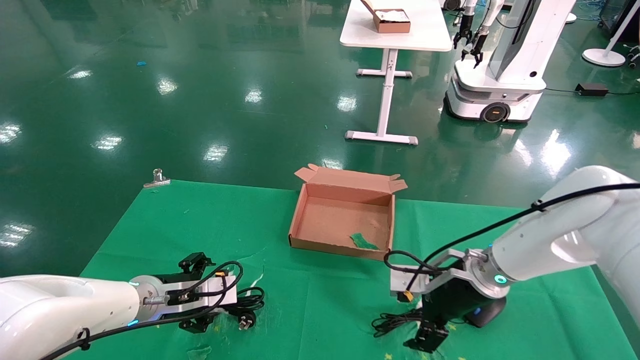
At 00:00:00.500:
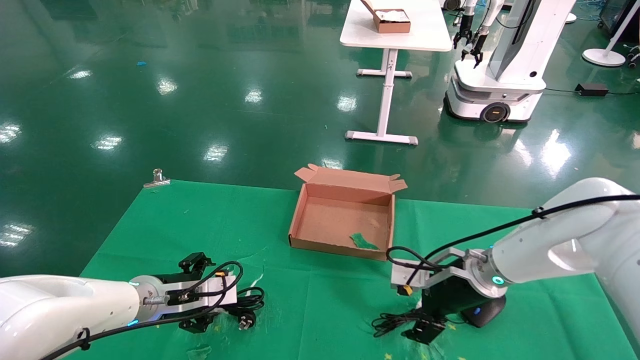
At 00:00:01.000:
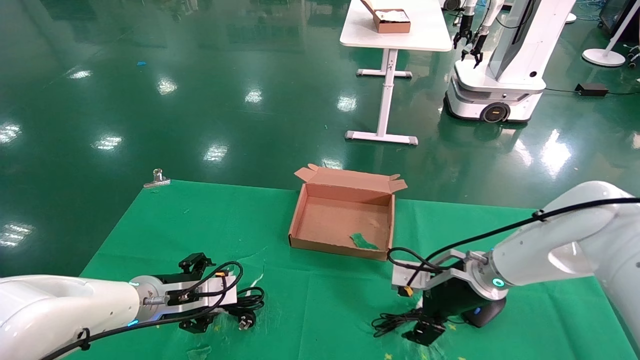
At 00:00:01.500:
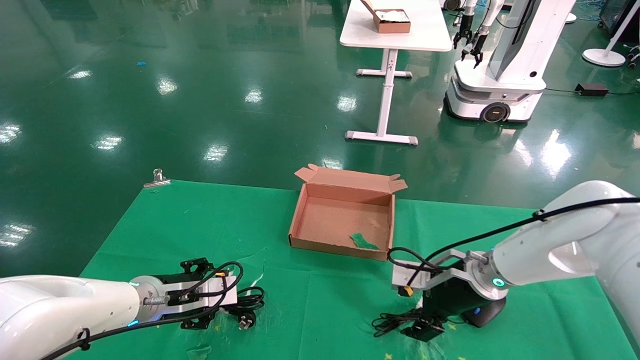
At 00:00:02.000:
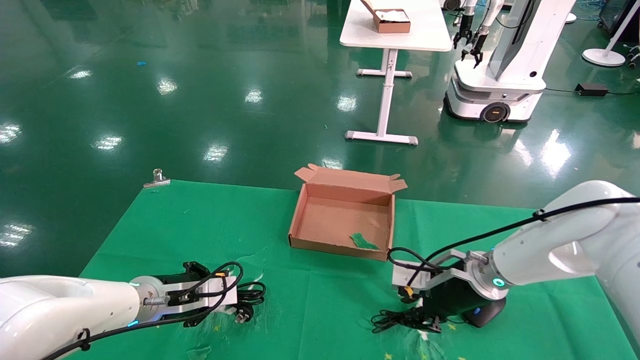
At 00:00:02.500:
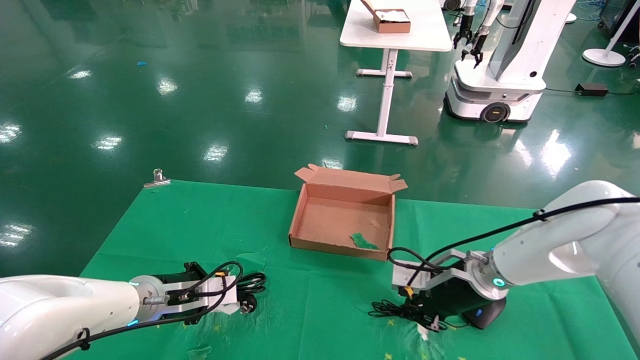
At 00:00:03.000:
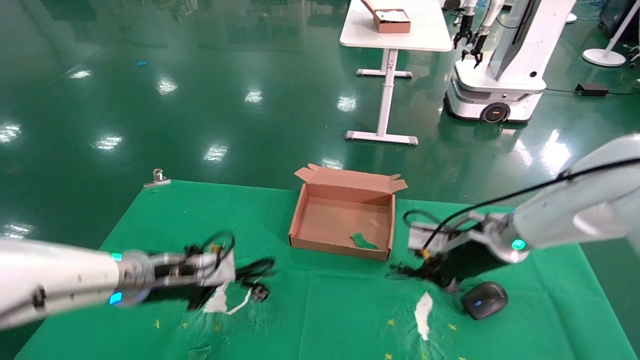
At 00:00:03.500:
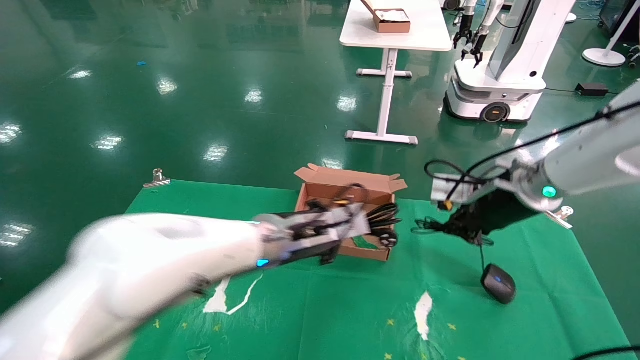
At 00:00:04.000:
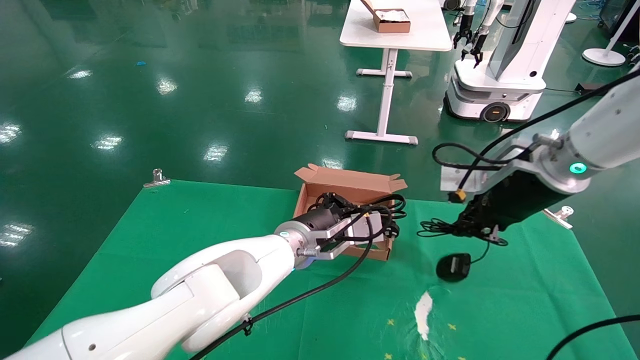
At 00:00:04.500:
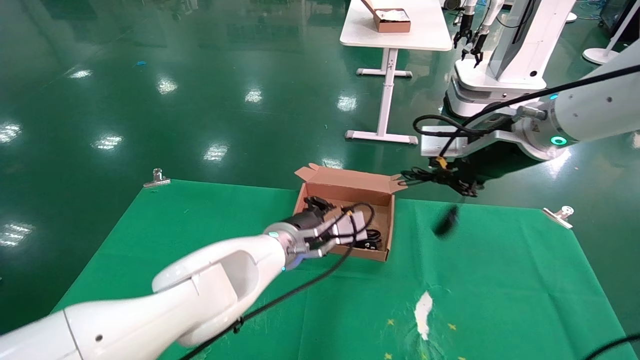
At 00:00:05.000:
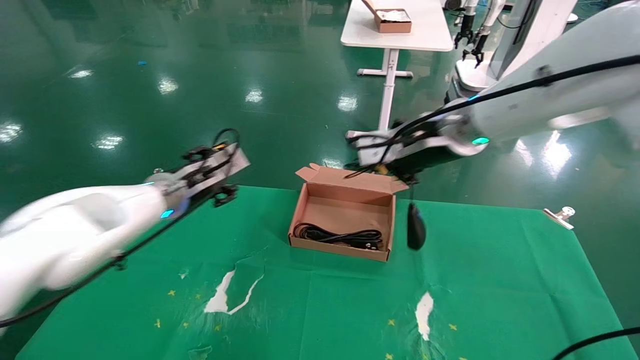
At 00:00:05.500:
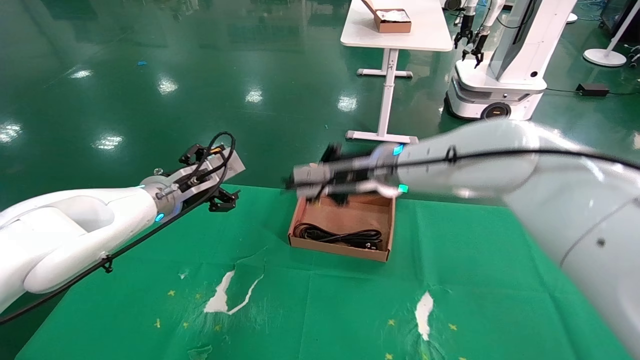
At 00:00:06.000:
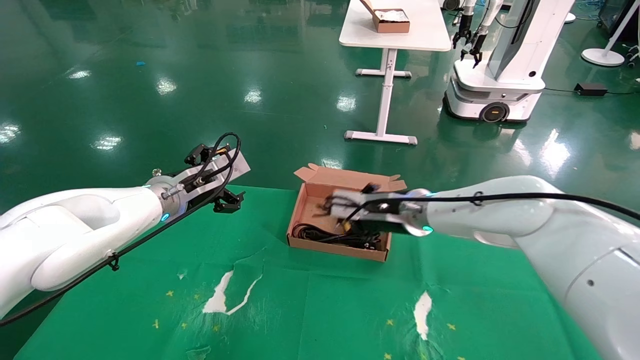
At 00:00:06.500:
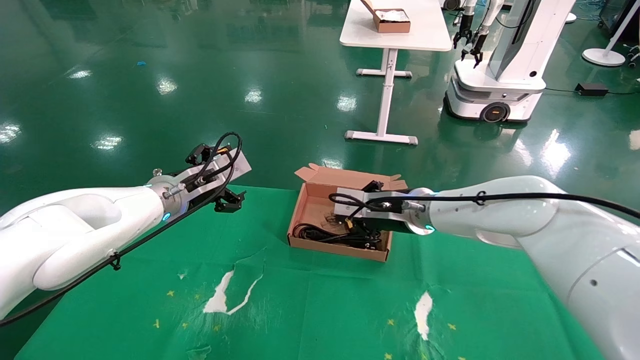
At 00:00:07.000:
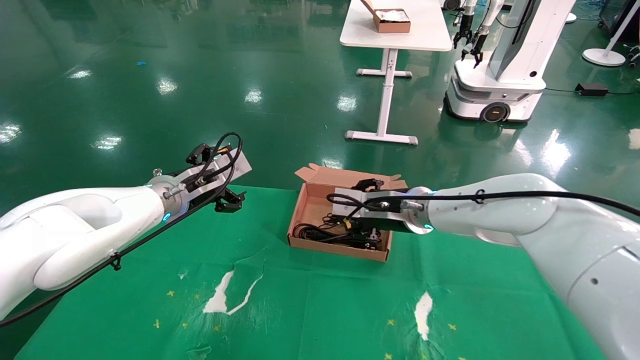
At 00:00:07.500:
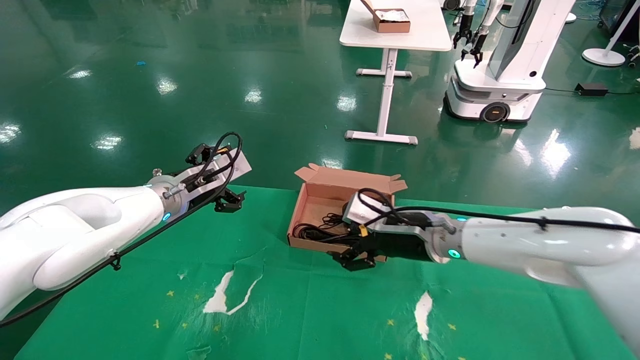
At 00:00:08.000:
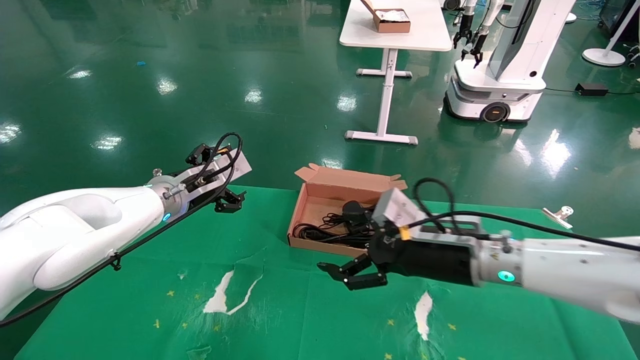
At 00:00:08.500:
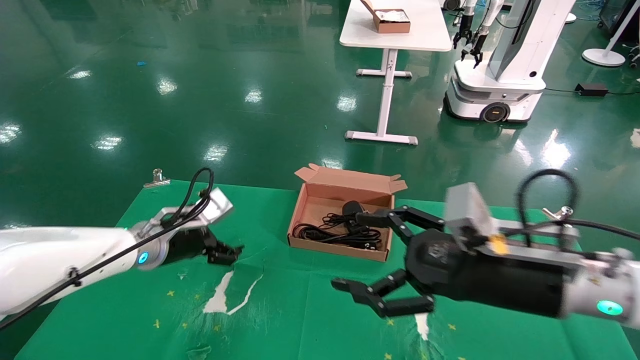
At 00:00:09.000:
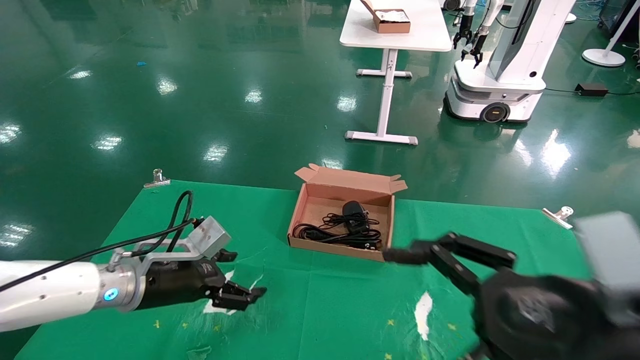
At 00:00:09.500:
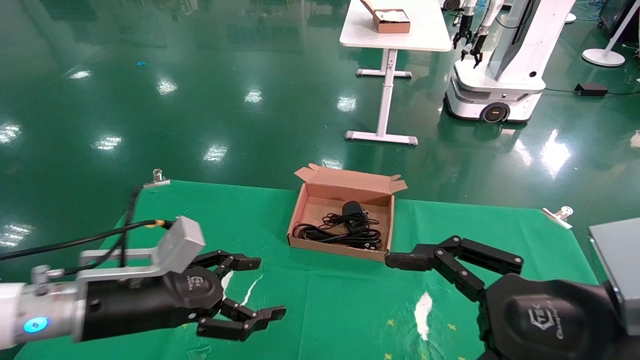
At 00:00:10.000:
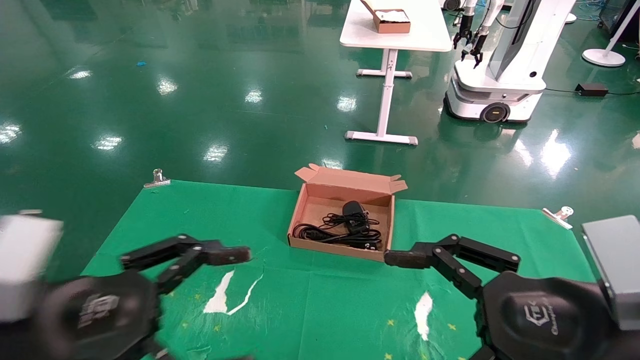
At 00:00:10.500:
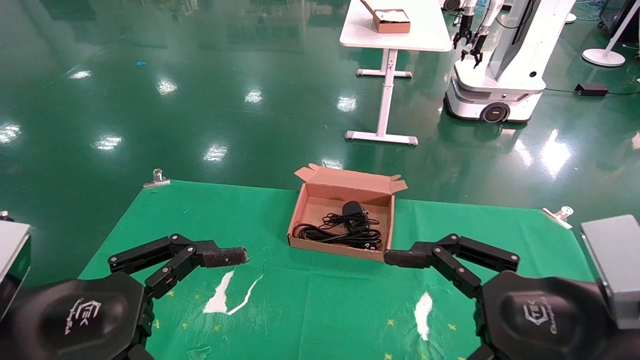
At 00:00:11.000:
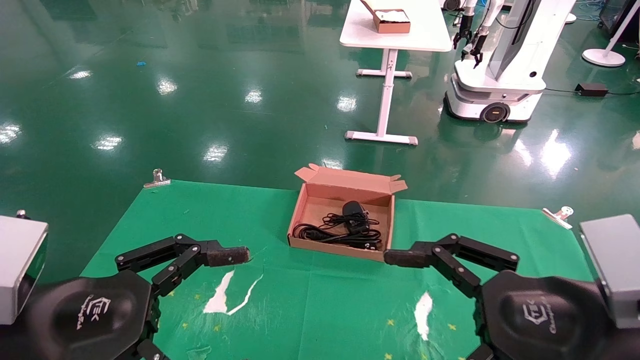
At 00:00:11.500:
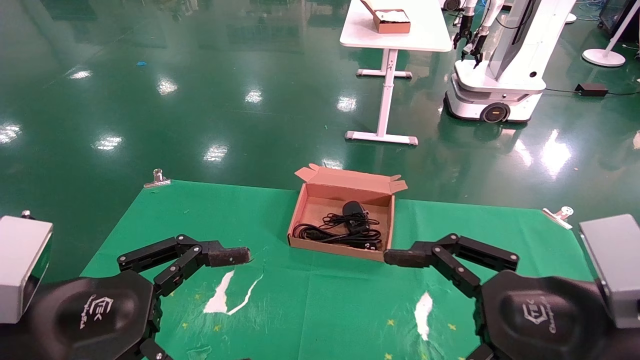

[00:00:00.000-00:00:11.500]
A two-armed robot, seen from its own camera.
Step, 00:00:00.000 to 00:00:02.000: Grab and lift both the mouse and power cord from the accessory packaging area at the same time.
Step, 00:00:02.500 to 00:00:07.000: Place the mouse and power cord into the box.
00:00:00.000 to 00:00:02.000: The left gripper closes its fingers. The right gripper closes.
00:00:02.000 to 00:00:04.000: The right gripper goes some 20 cm upward, and closes. The left gripper heads to the right, covering some 20 cm, and closes up.
00:00:04.000 to 00:00:06.000: The right gripper heads to the left, downward and forward, covering roughly 20 cm. The left gripper heads to the left, covering roughly 20 cm, and opens.
00:00:06.000 to 00:00:07.500: The right gripper shifts by roughly 5 cm, and opens.
00:00:07.500 to 00:00:09.500: The left gripper goes approximately 20 cm backward and downward. The right gripper travels backward and to the right by some 25 cm.
00:00:09.500 to 00:00:11.500: The left gripper goes roughly 10 cm backward.

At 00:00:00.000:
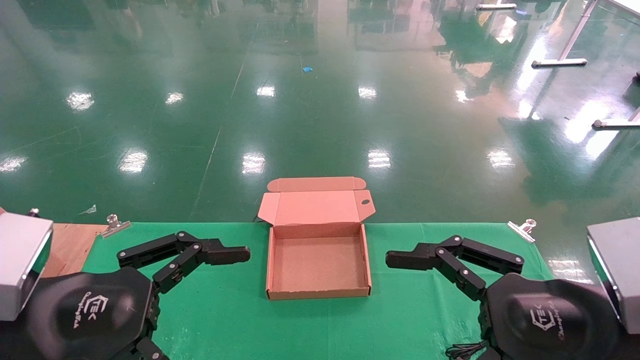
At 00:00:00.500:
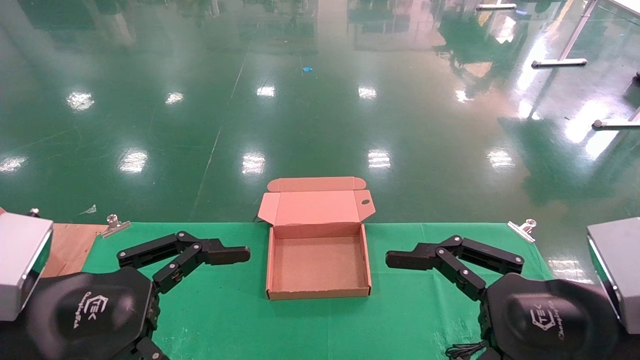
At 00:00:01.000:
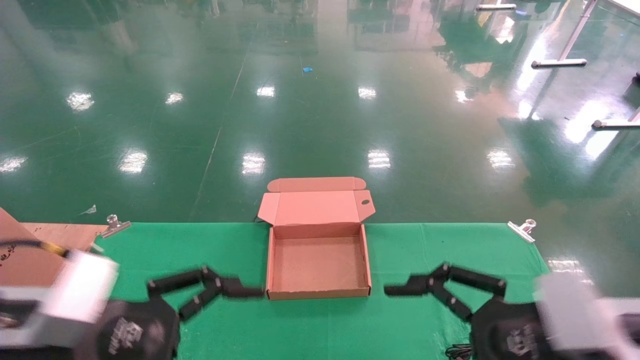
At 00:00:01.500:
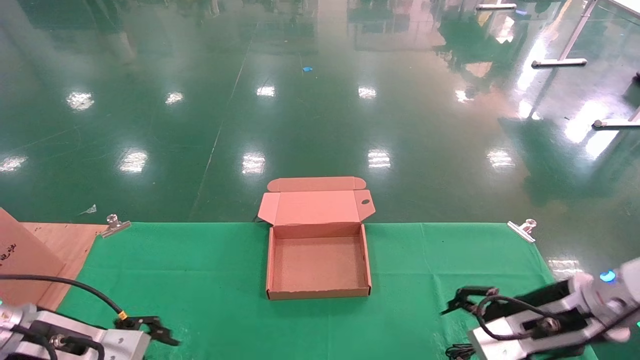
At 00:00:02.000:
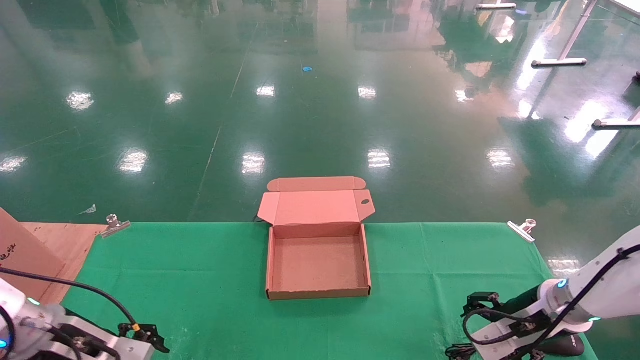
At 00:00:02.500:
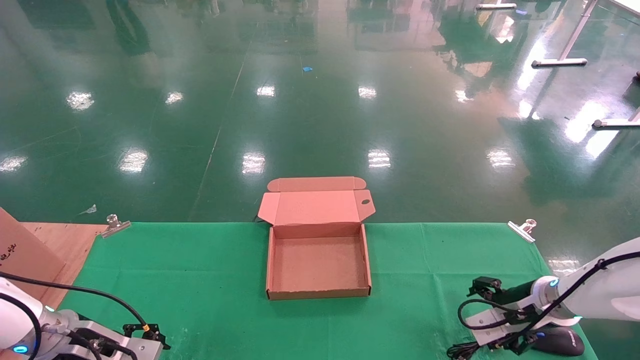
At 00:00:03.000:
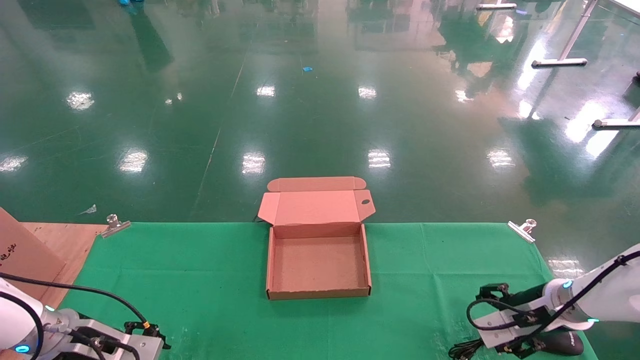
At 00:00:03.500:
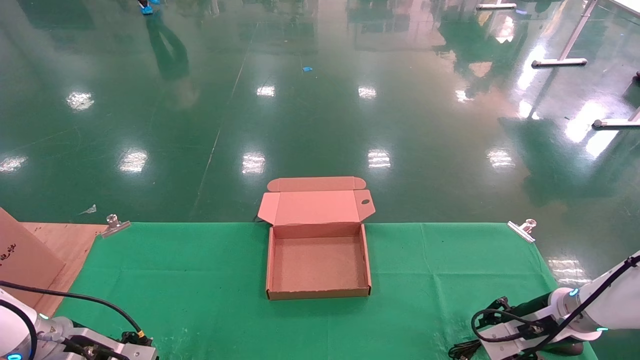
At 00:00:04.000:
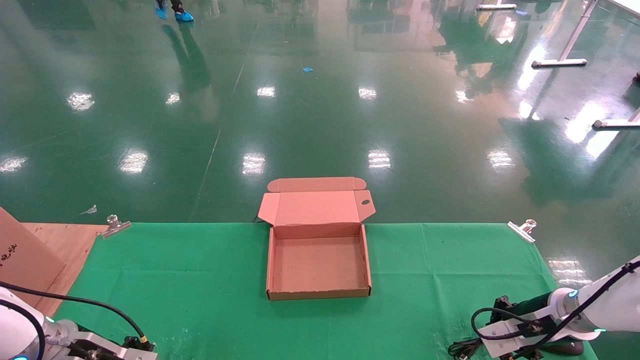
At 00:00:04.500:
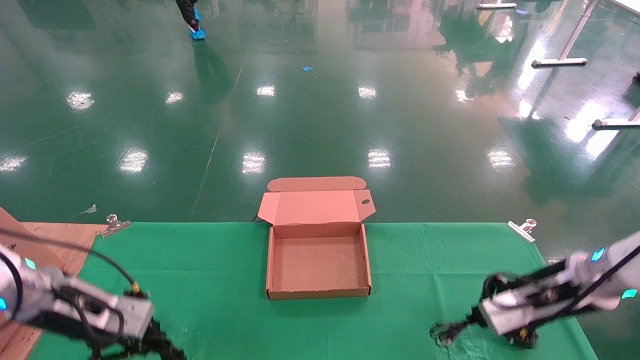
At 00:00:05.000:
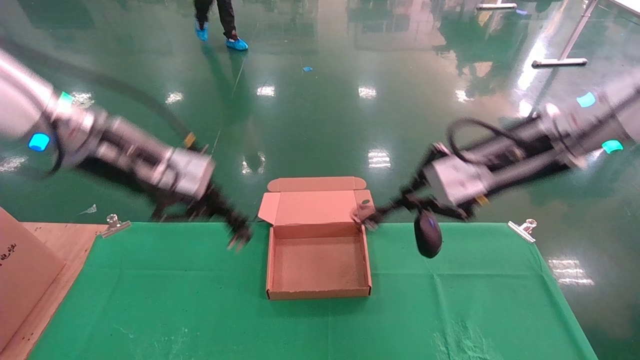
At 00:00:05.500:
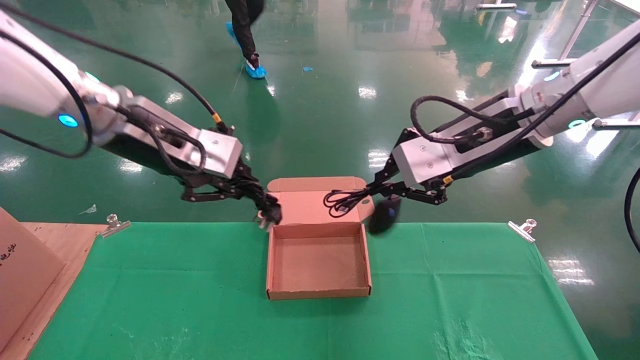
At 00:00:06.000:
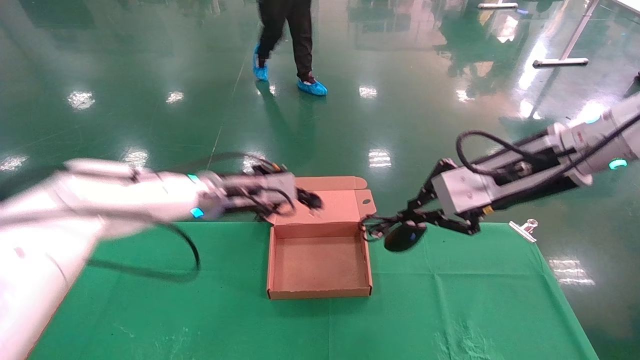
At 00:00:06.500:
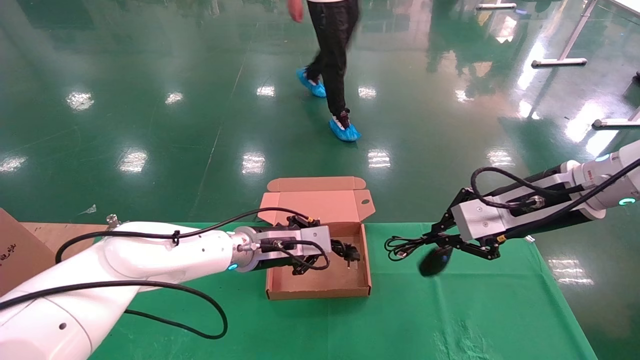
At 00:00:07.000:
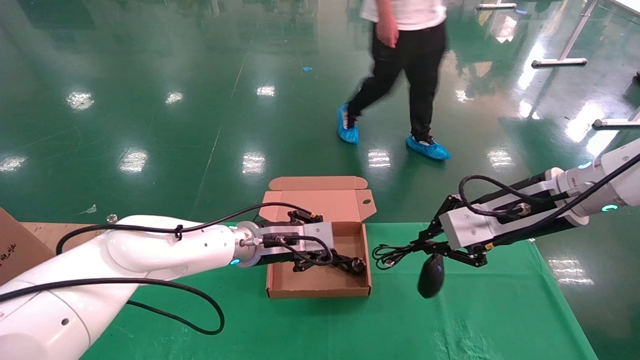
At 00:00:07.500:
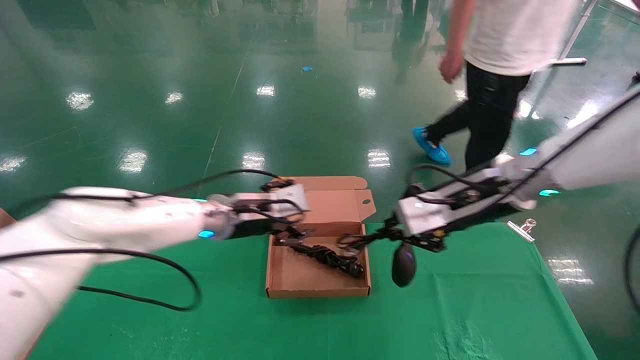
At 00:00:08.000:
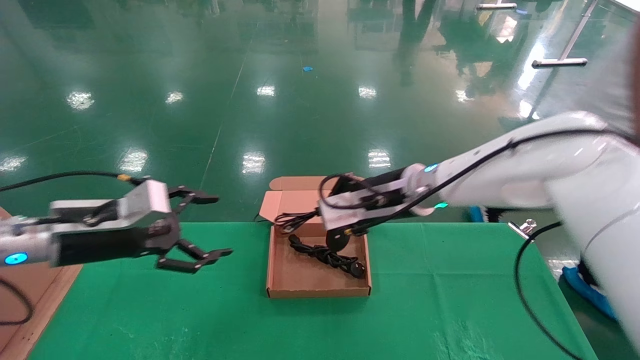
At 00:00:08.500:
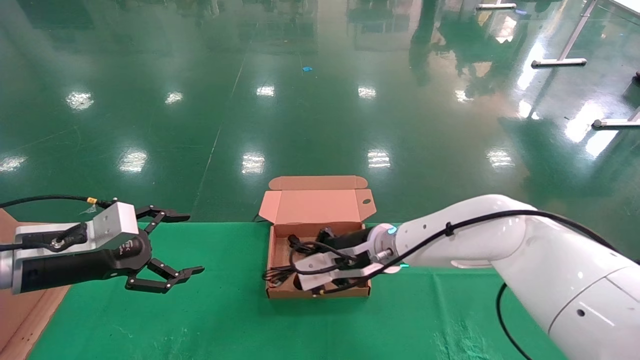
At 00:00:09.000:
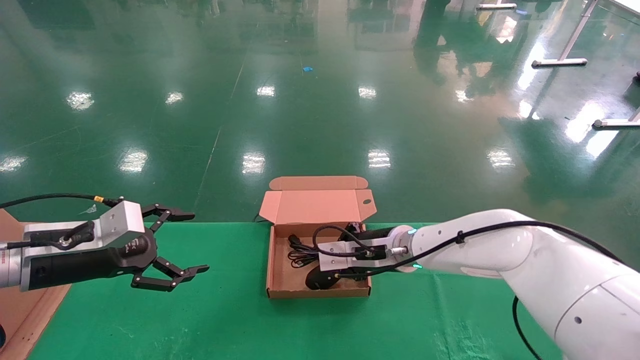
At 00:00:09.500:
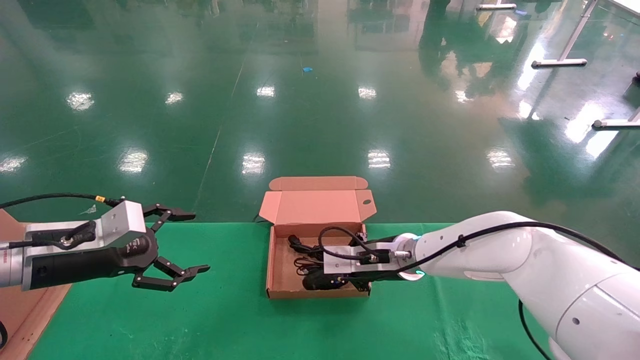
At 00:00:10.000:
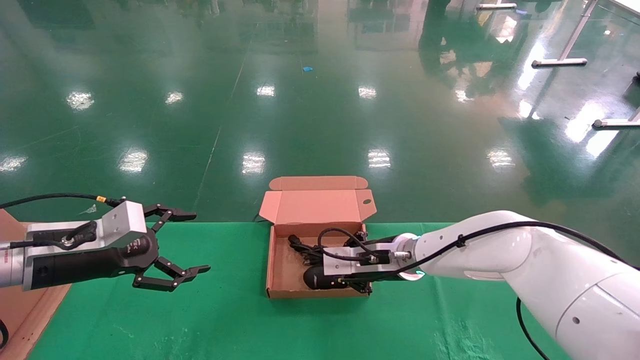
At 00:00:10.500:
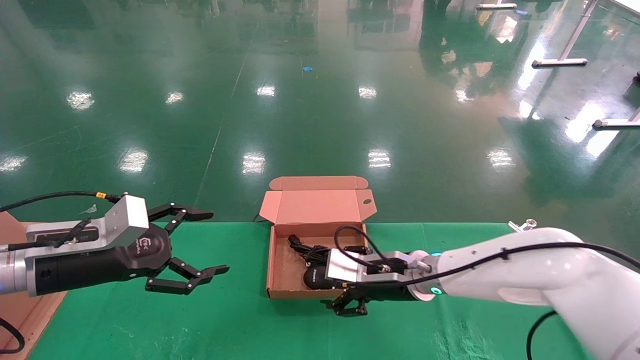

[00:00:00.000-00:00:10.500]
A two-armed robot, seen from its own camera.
Step, 00:00:01.500 to 00:00:05.000: Grab and lift both the mouse and power cord from the accessory packaging area at the same time.
Step, 00:00:05.500 to 00:00:10.000: Place the mouse and power cord into the box.
00:00:00.000 to 00:00:02.000: The left gripper travels forward, downward and to the left by roughly 25 cm; the right gripper heads forward and downward, covering some 25 cm.
00:00:02.000 to 00:00:04.000: The left gripper closes its fingers. Meanwhile the right gripper closes its fingers.
00:00:04.000 to 00:00:06.500: The right gripper moves upward, approximately 20 cm. Meanwhile the left gripper travels to the right and upward by about 30 cm.
00:00:06.500 to 00:00:08.500: The right gripper is displaced to the left, downward and forward by roughly 25 cm, while the left gripper heads to the left and backward, covering approximately 30 cm, and opens.
00:00:08.500 to 00:00:10.500: The right gripper shifts by some 5 cm, and opens up.
